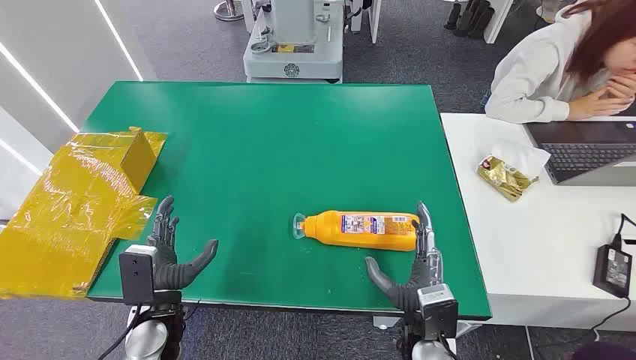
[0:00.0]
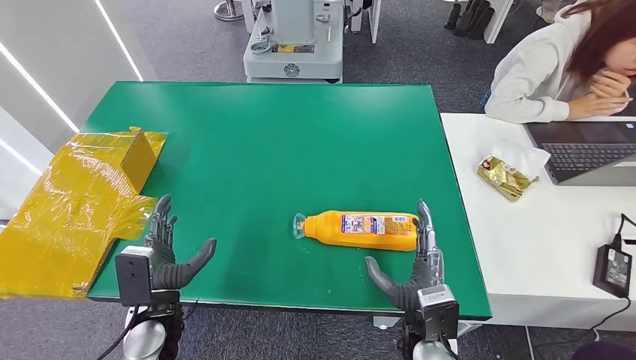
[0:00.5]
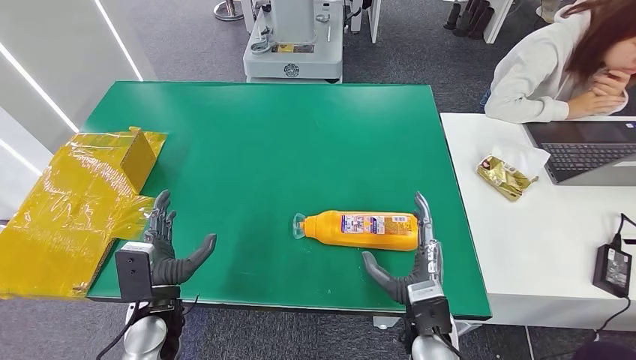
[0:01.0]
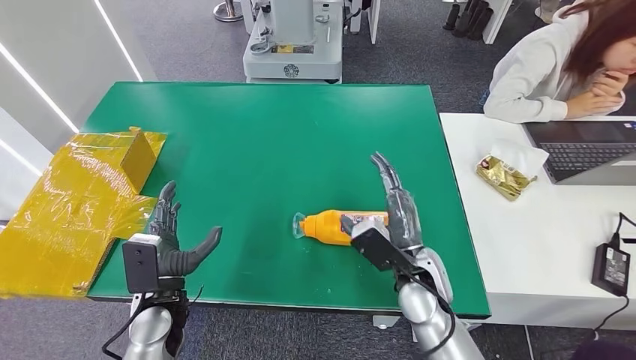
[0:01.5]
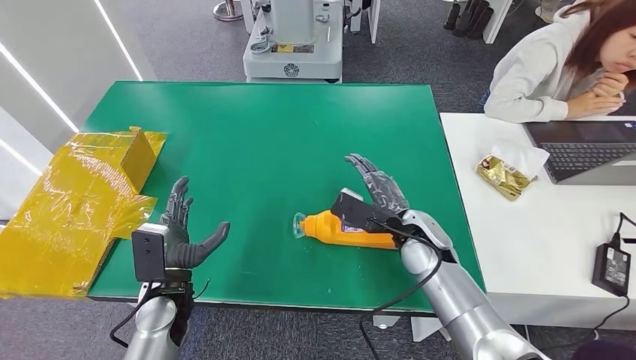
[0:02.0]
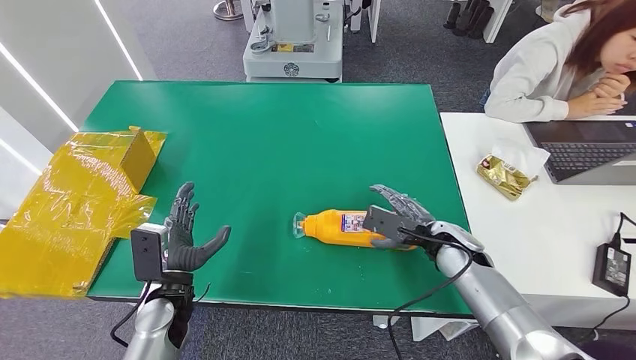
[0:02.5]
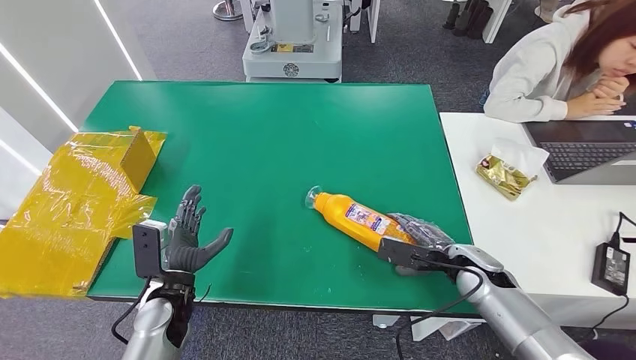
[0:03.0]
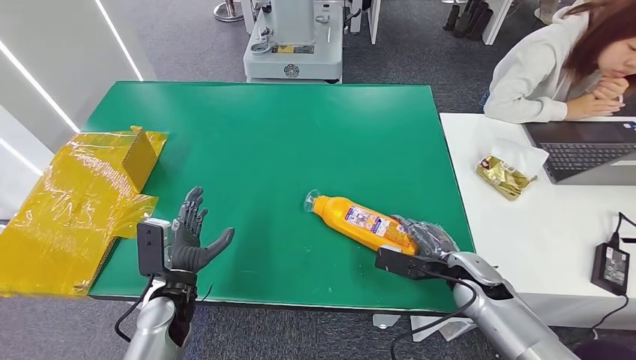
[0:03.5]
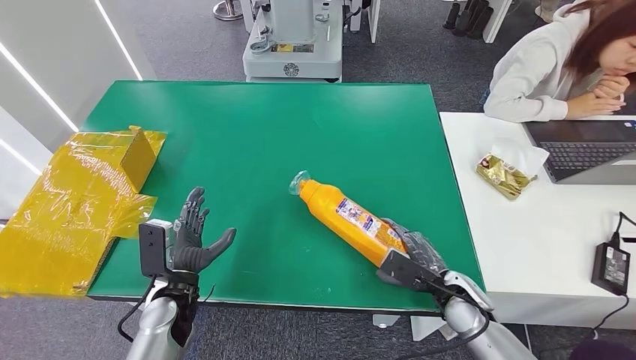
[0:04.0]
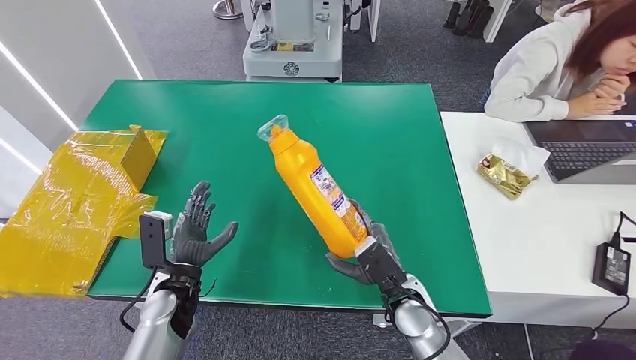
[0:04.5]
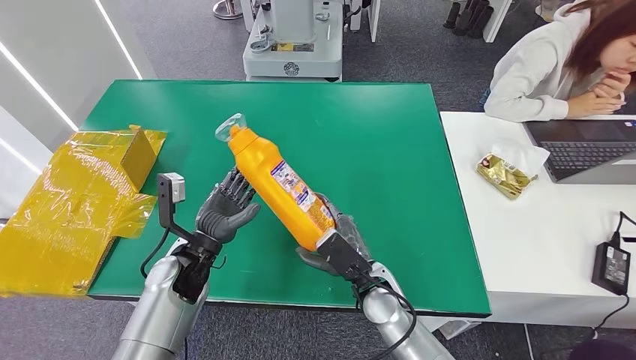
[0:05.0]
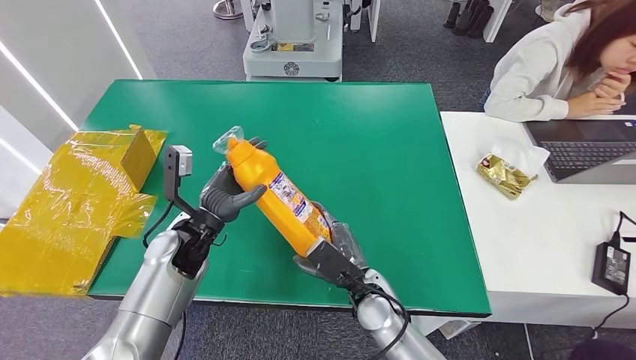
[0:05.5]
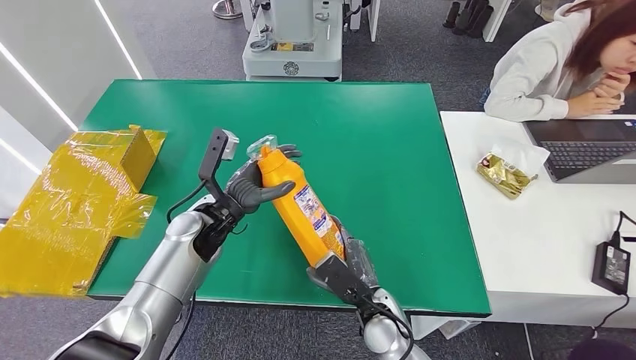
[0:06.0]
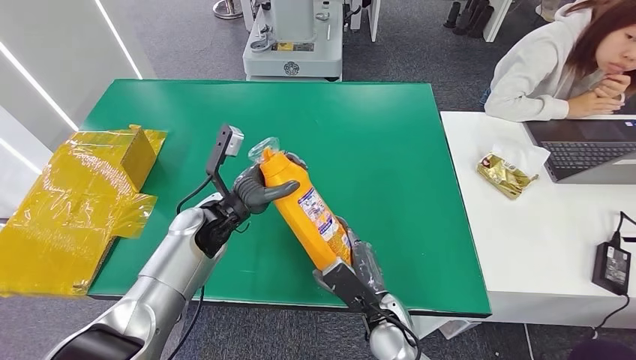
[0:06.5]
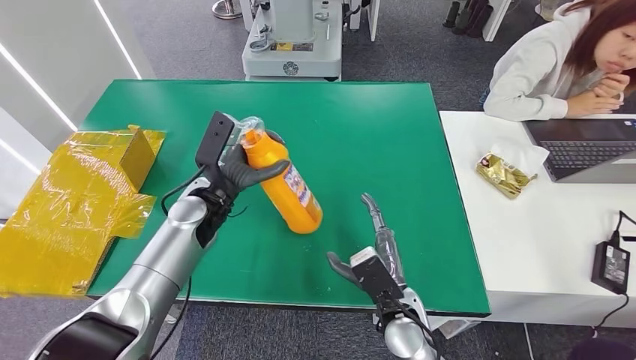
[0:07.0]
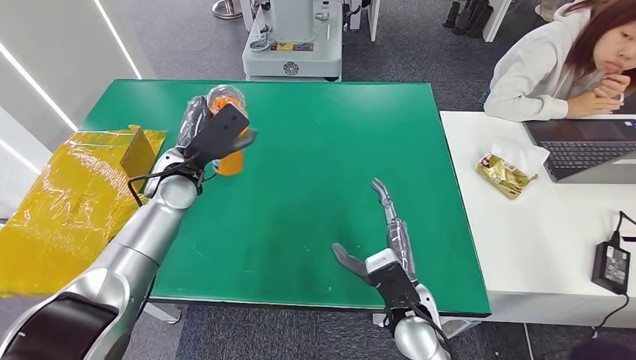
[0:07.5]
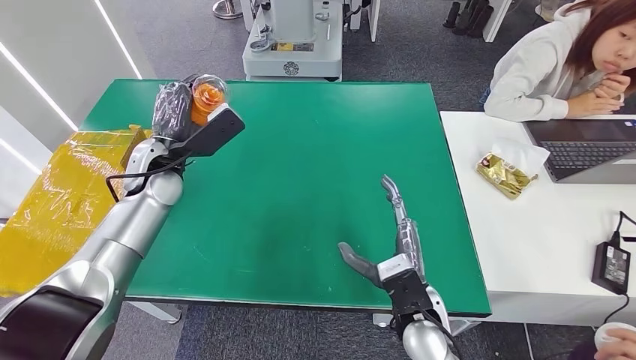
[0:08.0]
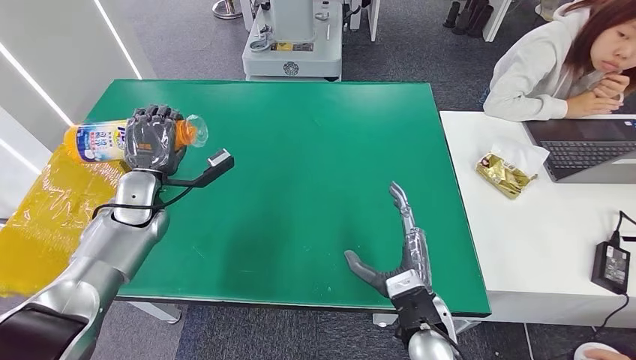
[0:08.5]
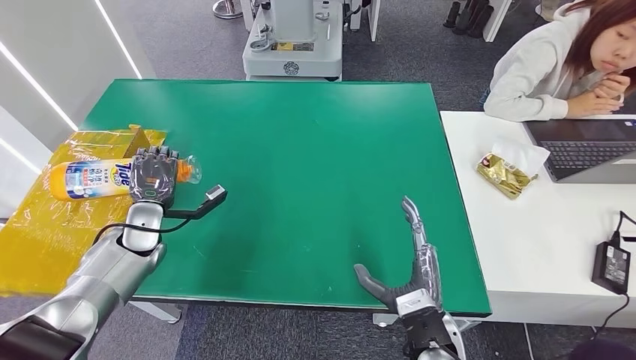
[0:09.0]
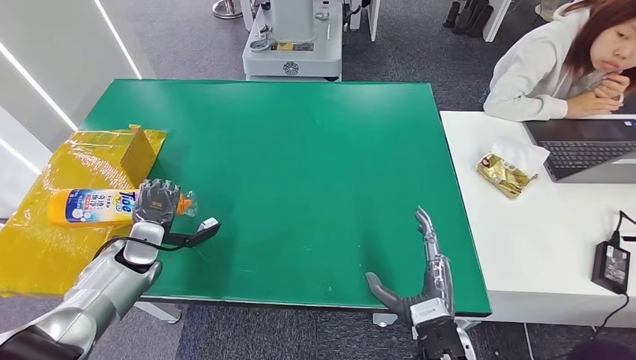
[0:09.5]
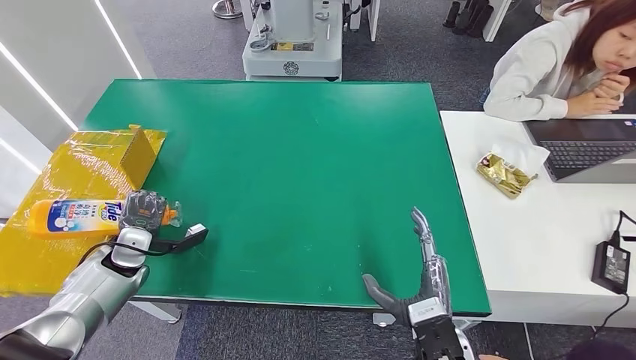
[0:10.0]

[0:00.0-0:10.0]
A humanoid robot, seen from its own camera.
Step, 0:00.0 to 0:05.5: Pick up the bottle from the table.
Step, 0:06.5 to 0:10.0: Turn the bottle to the front side.
0:02.0 to 0:04.0: The right hand travels to the right, downward and backward by roughly 15 cm.
0:04.0 to 0:06.0: The right hand shifts about 15 cm to the left; the left hand moves forward and upward, some 15 cm.
0:08.0 to 0:10.0: The right hand shifts about 5 cm backward; the left hand shifts about 25 cm downward, to the left and backward.
